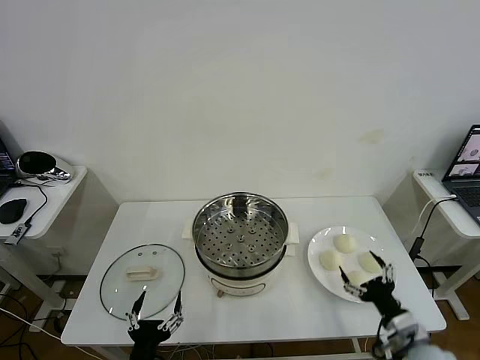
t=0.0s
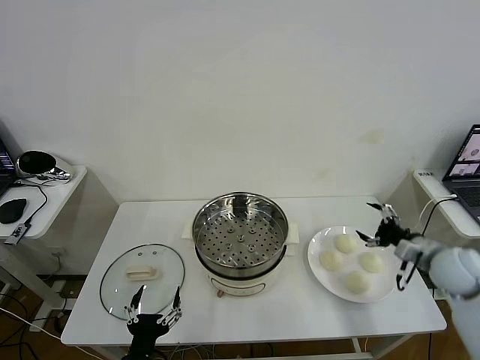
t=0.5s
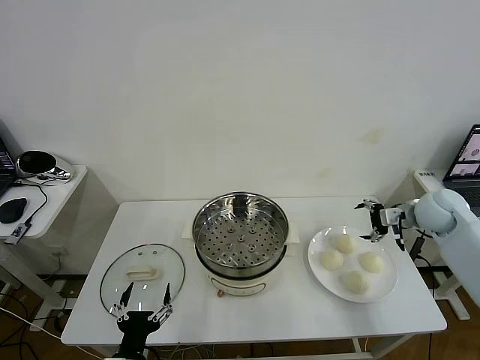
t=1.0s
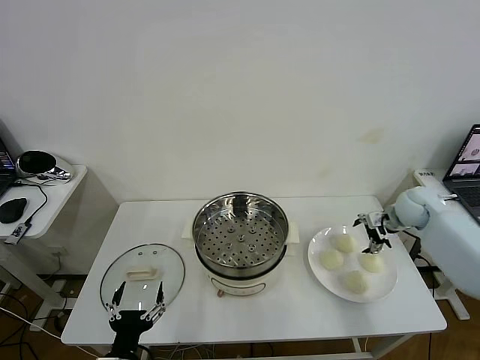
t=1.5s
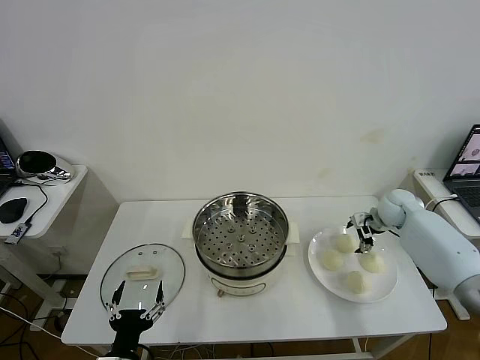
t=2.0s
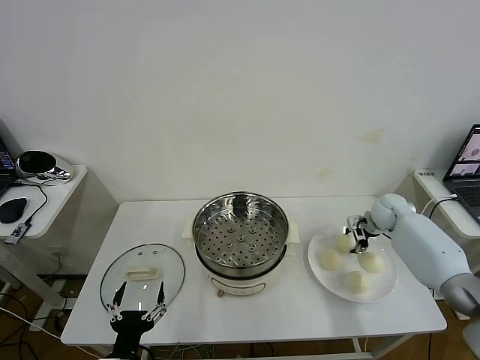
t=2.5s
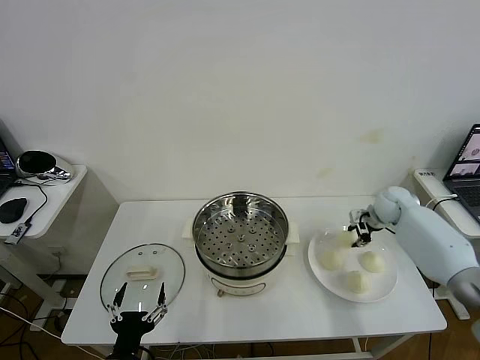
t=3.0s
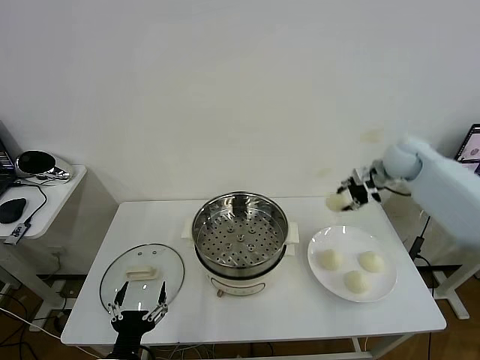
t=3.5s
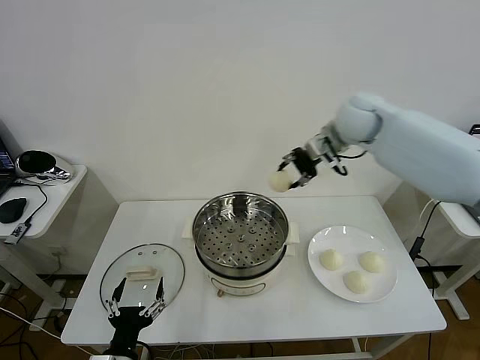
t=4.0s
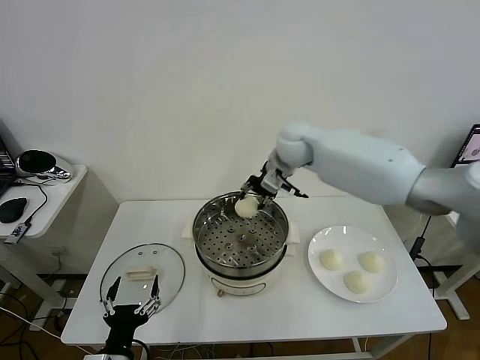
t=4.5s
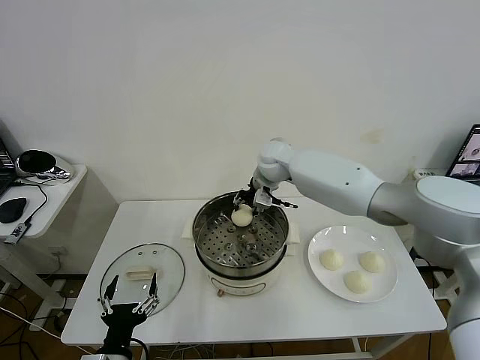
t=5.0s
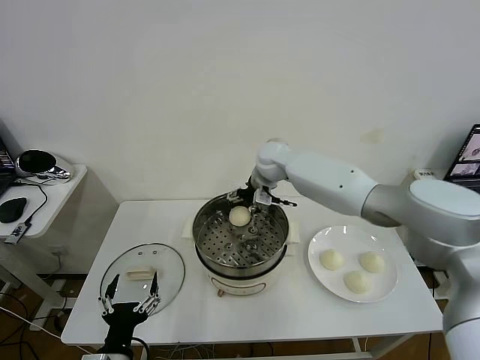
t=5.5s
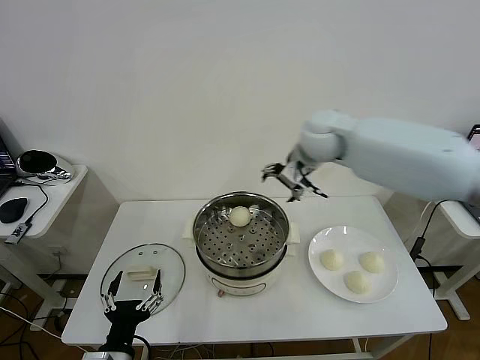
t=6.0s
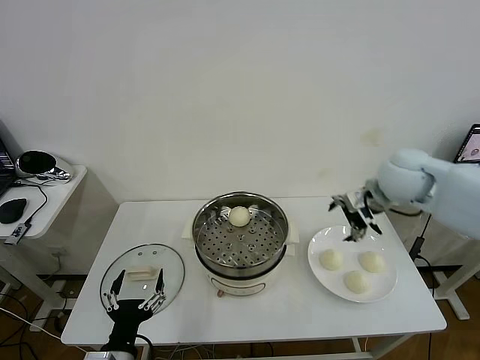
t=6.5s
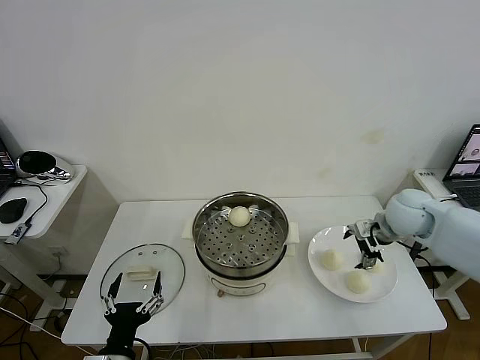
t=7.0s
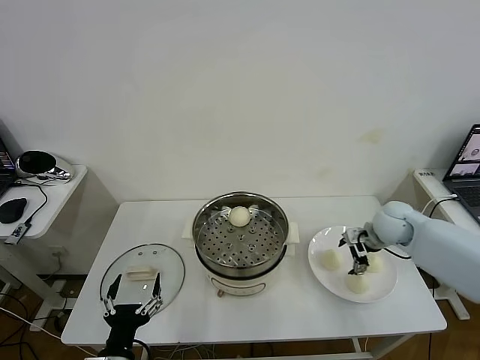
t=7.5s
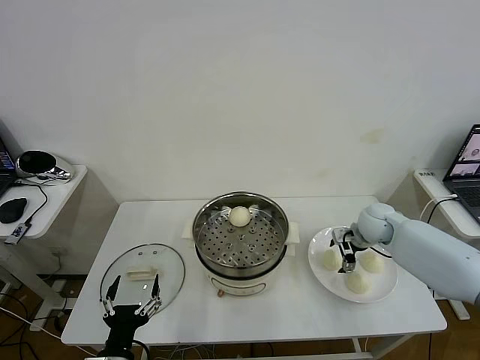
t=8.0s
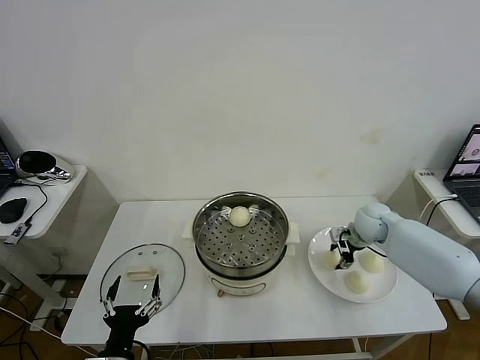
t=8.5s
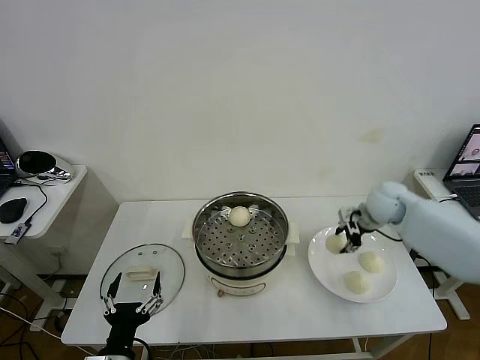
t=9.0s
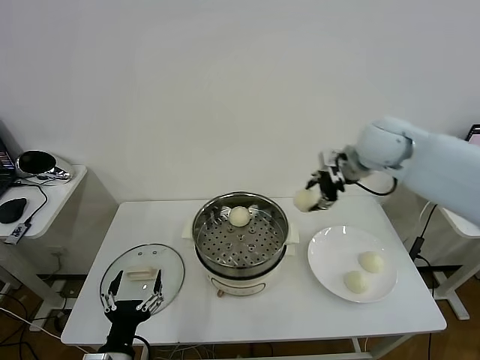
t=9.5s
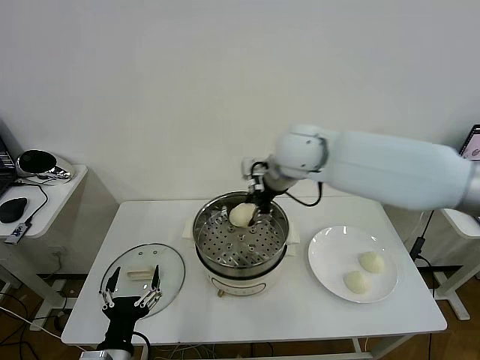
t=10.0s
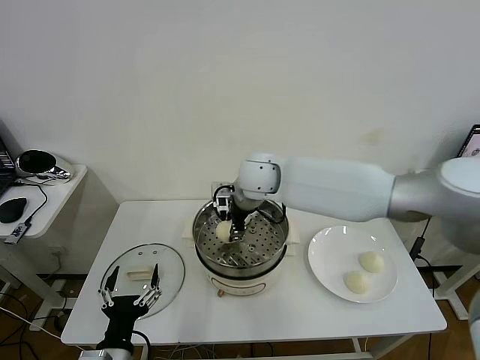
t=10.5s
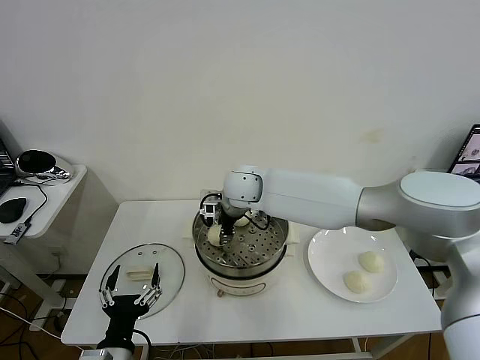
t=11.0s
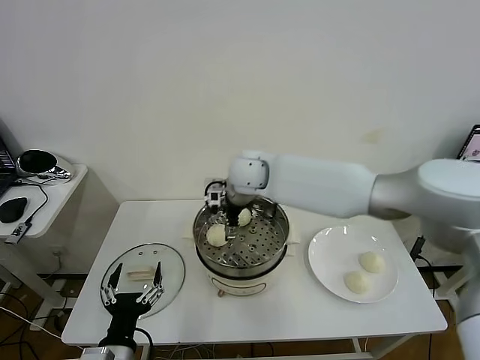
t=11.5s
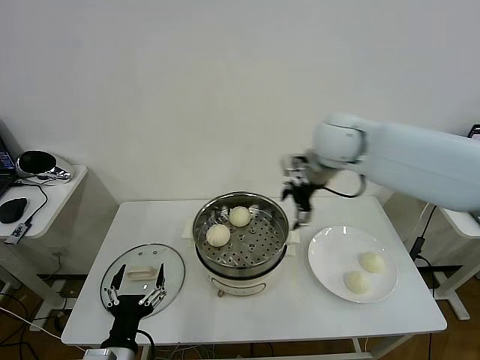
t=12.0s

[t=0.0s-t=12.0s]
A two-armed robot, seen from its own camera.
Task of the whole recording: take steamed baozi put them in steamer then cover it.
Step, t=0.0s to t=2.5s: Grasp the baozi in the plate with right gripper.
Step, t=3.0s to t=5.0s: Place the baozi on the steamer with right gripper.
Step, t=6.0s to t=8.5s: Grasp the baozi in the plate with right gripper.
Step, t=9.0s to t=11.0s: Place the baozi on the steamer with right gripper.
t=2.0s to t=4.0s: The right gripper goes about 30 cm upward and to the left, and closes its fingers.
t=4.0s to t=6.0s: The right gripper is displaced backward by about 5 cm, travels to the left and back again, roughly 10 cm each way, and opens.
t=6.0s to t=8.0s: The right gripper heads downward and to the right, covering approximately 25 cm.
t=8.0s to t=10.0s: The right gripper travels to the left and upward by approximately 35 cm, and closes up.
t=10.0s to t=12.0s: The right gripper is displaced to the right by roughly 15 cm, and opens its fingers.

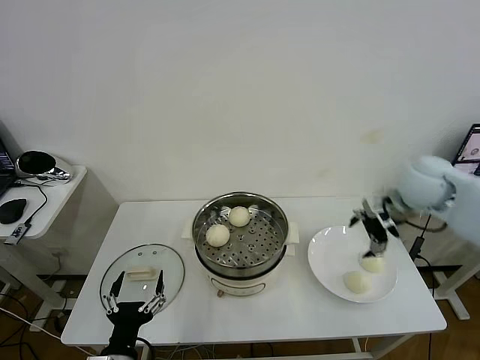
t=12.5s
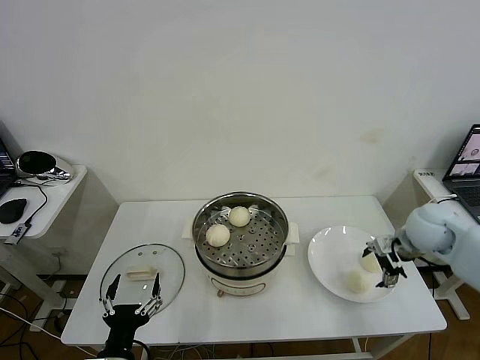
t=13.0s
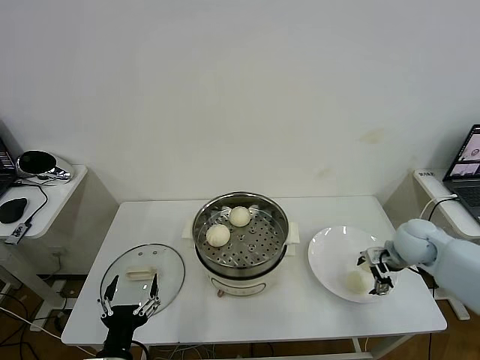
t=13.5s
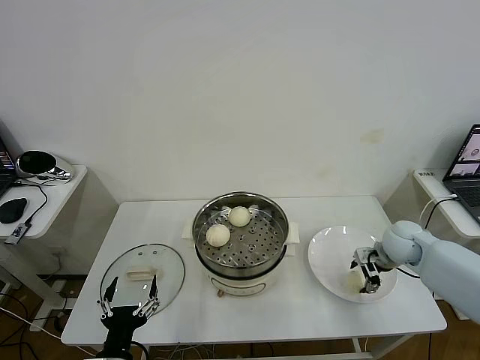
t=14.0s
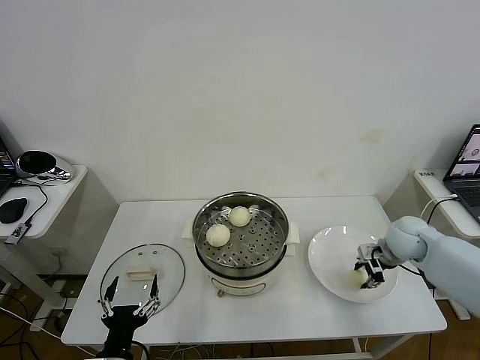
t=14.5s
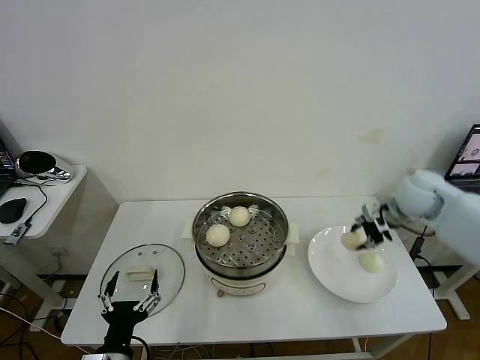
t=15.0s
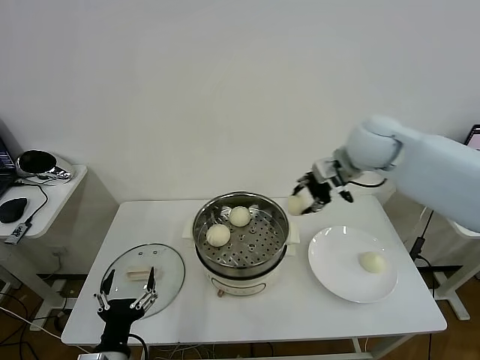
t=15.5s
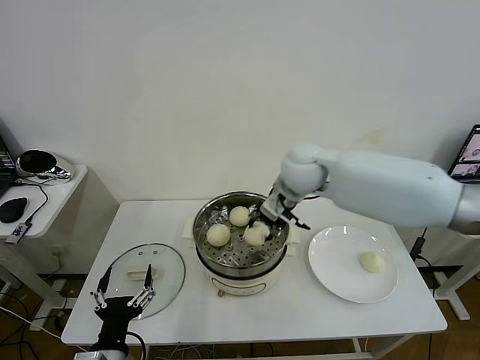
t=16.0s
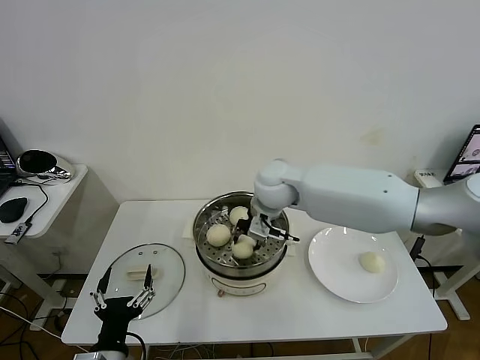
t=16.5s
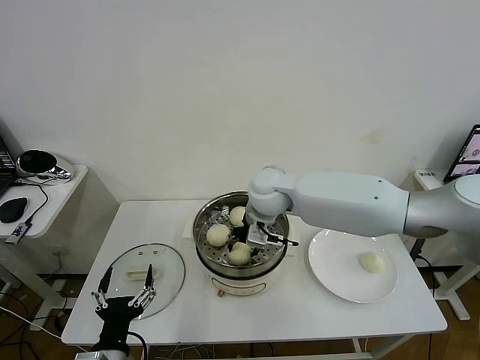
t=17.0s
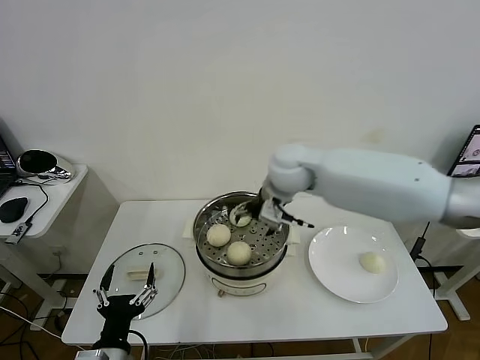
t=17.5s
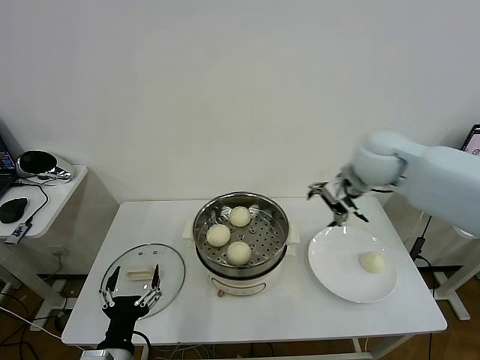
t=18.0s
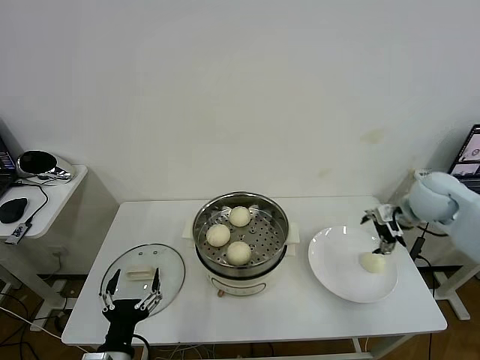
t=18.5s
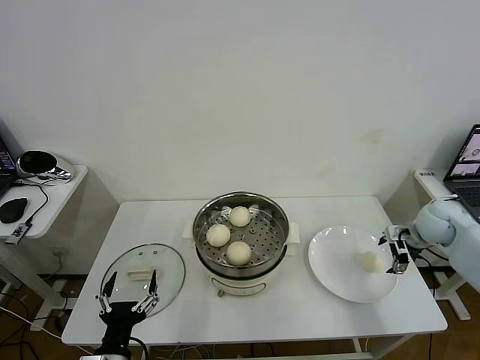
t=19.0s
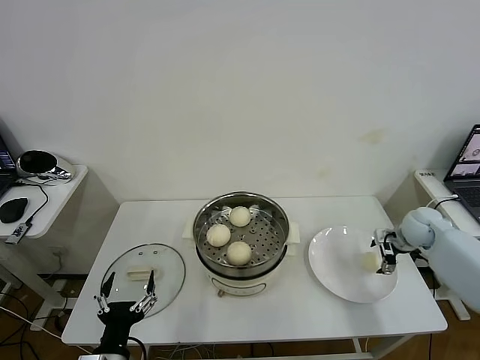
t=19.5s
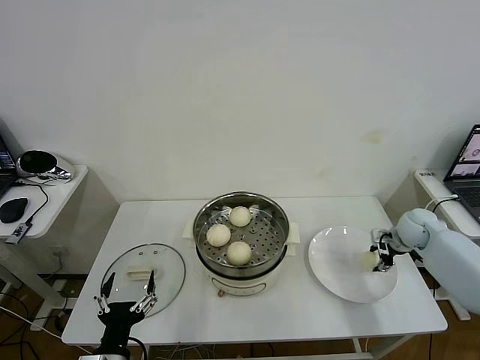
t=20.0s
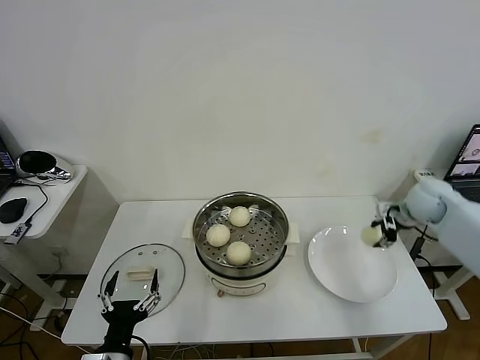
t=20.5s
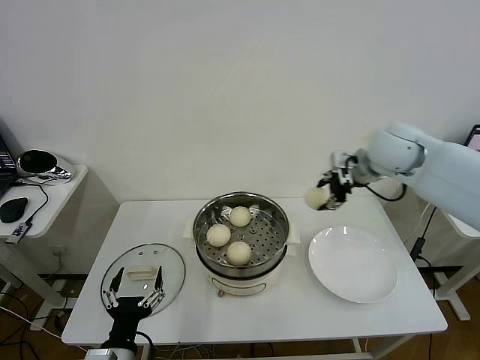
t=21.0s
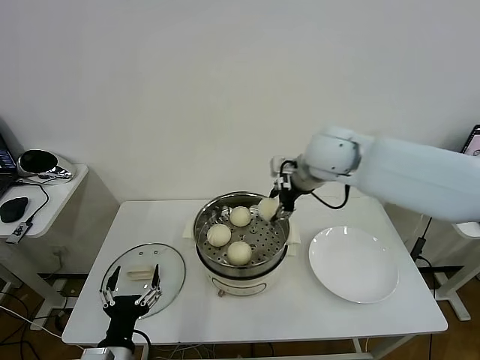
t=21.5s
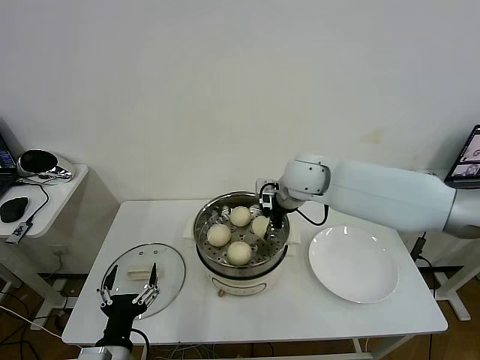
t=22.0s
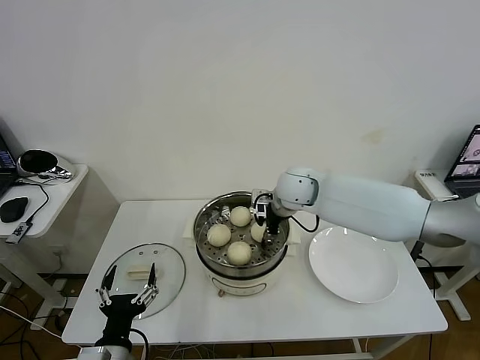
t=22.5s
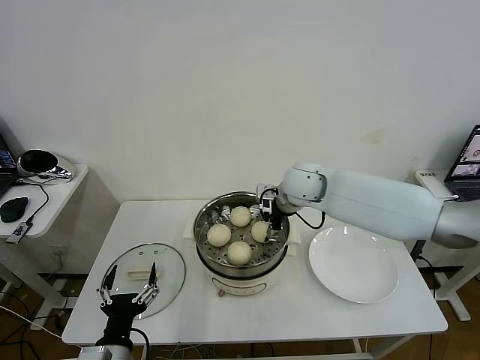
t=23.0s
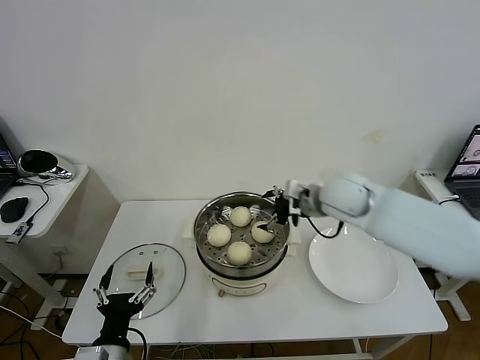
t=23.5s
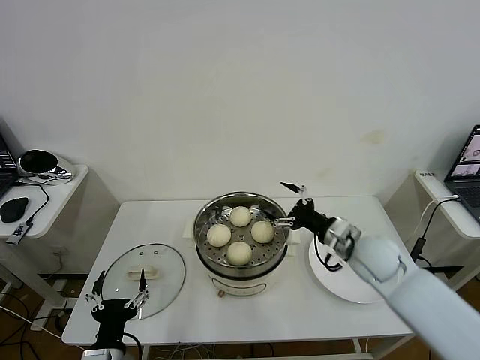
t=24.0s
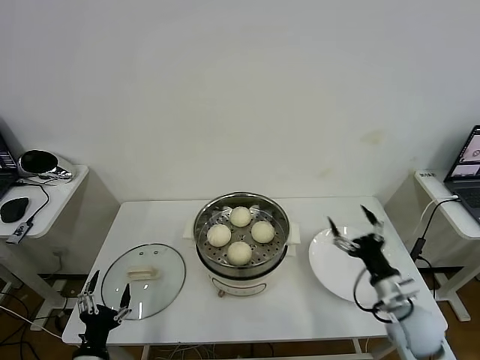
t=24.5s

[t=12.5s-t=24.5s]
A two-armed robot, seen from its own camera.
Task of the whole recording: take steamed baozi put them in steamer then cover it.
Step, t=12.5s to t=14.0s: Grasp the baozi in the plate with right gripper.
Step, t=14.5s to t=17.0s: Place the baozi on the steamer with right gripper.
Step, t=17.5s to t=20.0s: Grasp the baozi in the plate with right gripper.
Step, t=20.5s to t=23.0s: Place the baozi on the steamer with right gripper.
t=12.5s to t=14.5s: The right gripper travels downward by about 15 cm, and closes its fingers.
t=14.5s to t=16.5s: The right gripper is displaced to the left by about 30 cm.
t=16.5s to t=18.5s: The right gripper is displaced to the right by about 35 cm, and opens up.
t=18.5s to t=20.5s: The right gripper travels downward and back again, approximately 15 cm each way, and closes its fingers.
t=20.5s to t=22.5s: The right gripper heads to the left, covering roughly 30 cm.
t=22.5s to t=24.5s: The left gripper is displaced to the left and downward by approximately 10 cm. Meanwhile the right gripper is displaced backward, to the right and downward by approximately 40 cm, and opens.

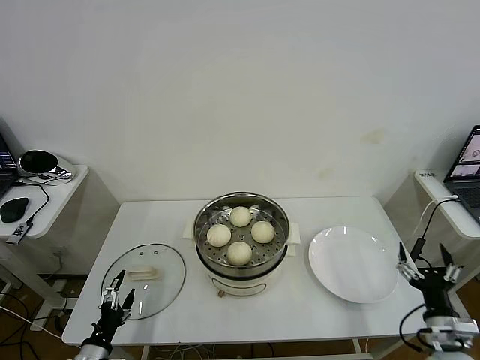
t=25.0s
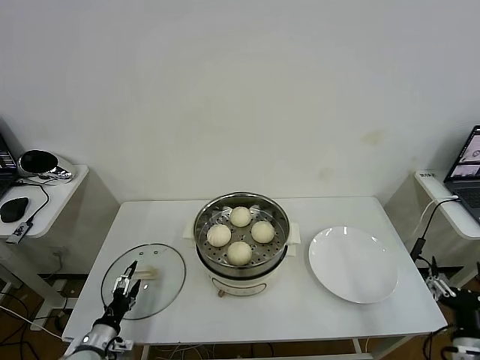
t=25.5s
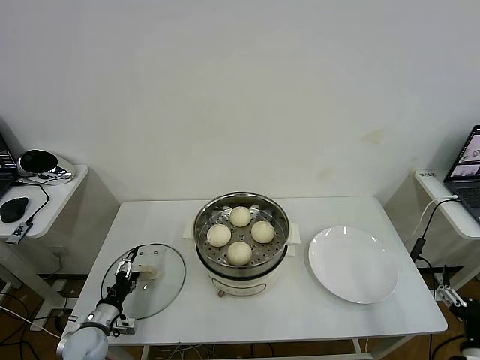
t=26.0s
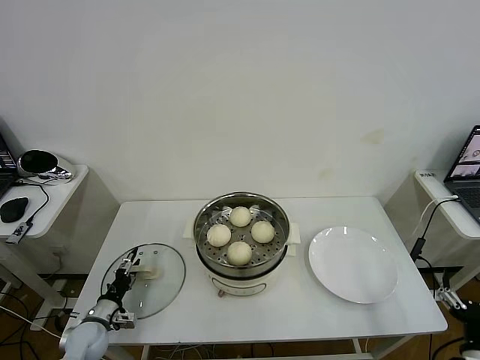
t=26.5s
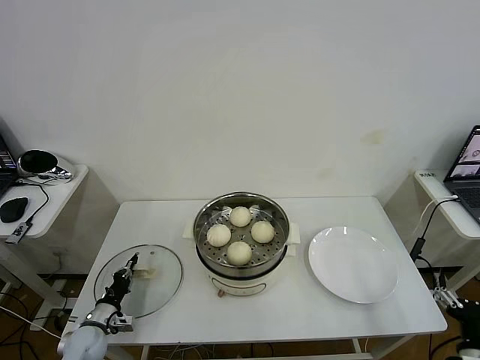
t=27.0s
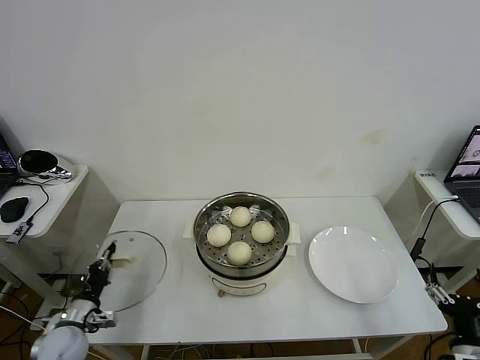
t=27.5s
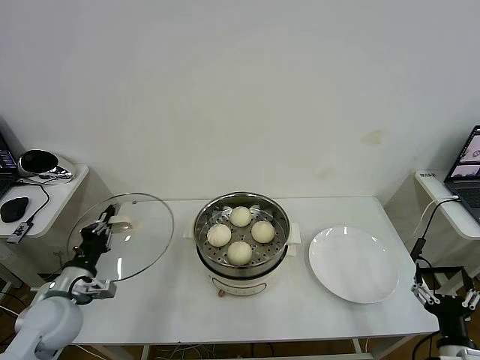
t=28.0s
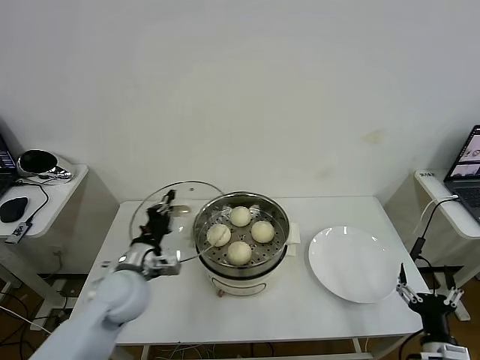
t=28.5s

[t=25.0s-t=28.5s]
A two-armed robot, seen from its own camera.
Task of the whole recording: take steamed baozi put them in steamer then cover it.
Step, t=25.0s to t=27.0s: Grasp the pot lid with left gripper.
t=25.0s to t=27.0s: The left gripper heads forward and downward, covering approximately 15 cm, and closes. Meanwhile the right gripper moves backward, about 5 cm.
t=27.0s to t=28.5s: The right gripper moves roughly 5 cm. The left gripper heads upward and to the right, covering roughly 25 cm.
